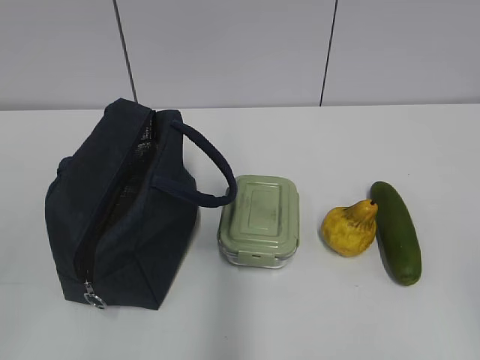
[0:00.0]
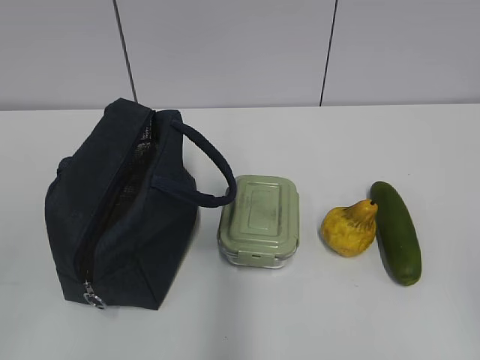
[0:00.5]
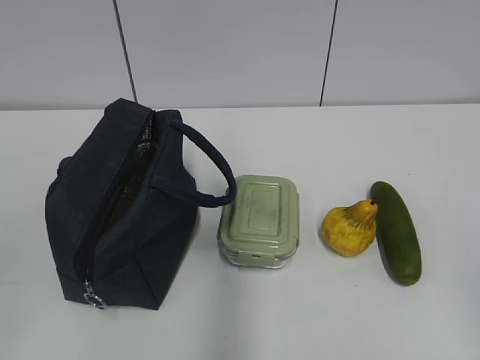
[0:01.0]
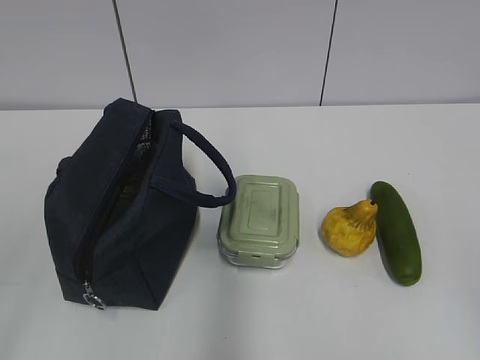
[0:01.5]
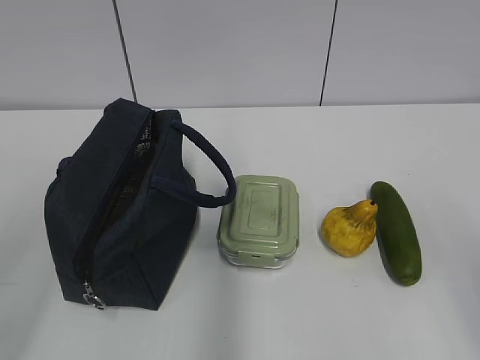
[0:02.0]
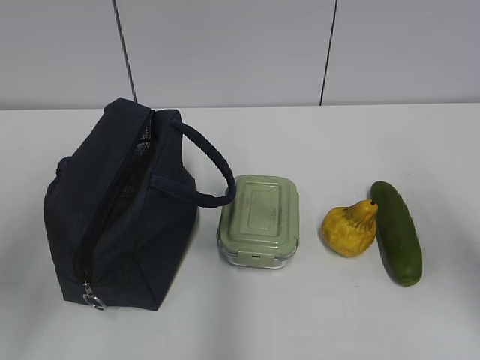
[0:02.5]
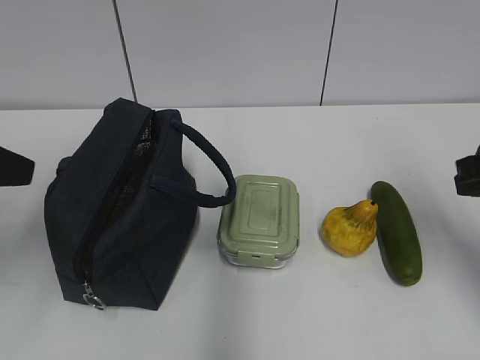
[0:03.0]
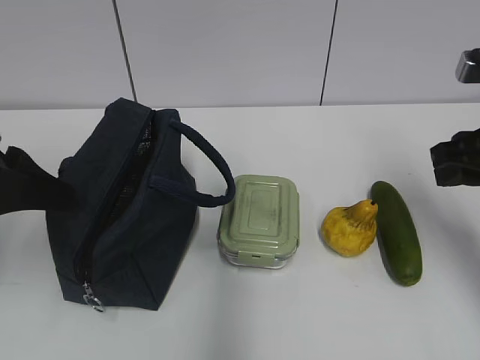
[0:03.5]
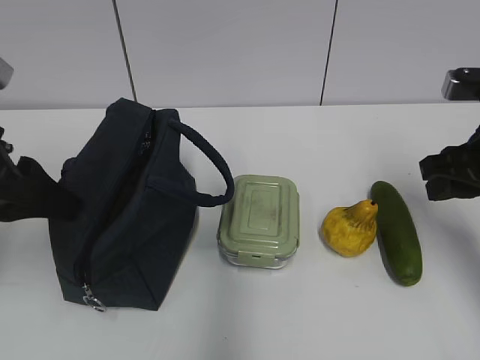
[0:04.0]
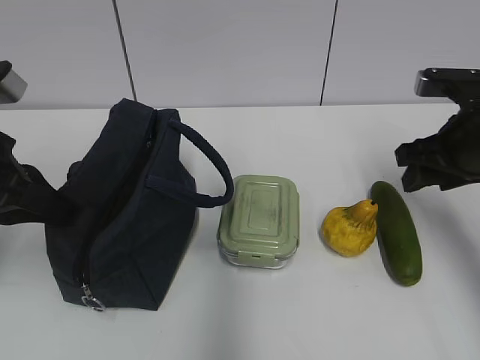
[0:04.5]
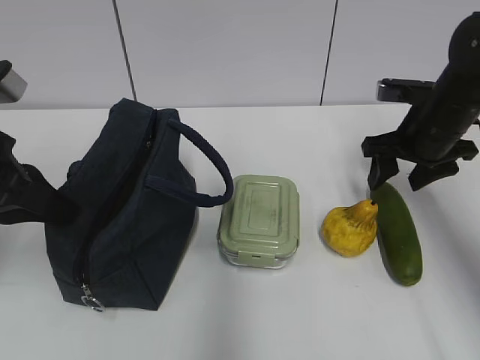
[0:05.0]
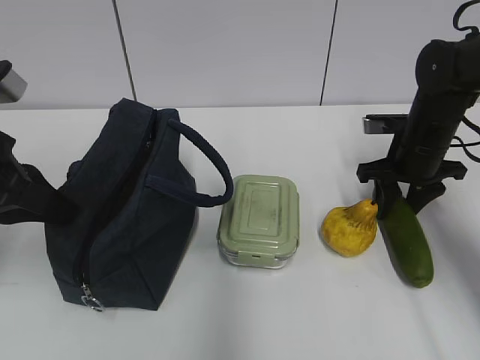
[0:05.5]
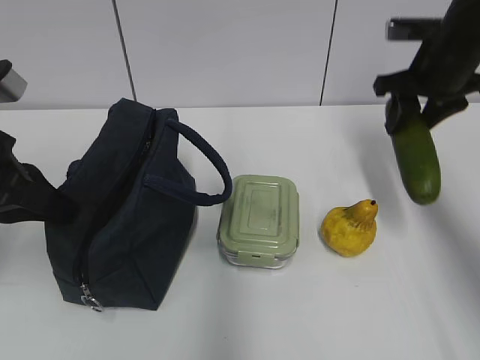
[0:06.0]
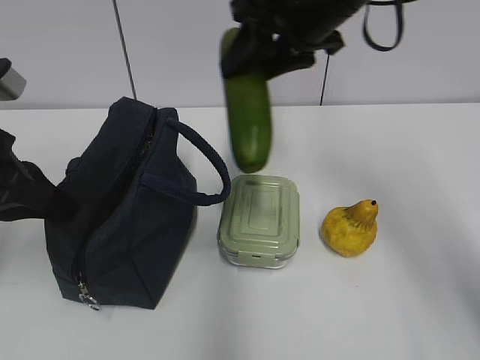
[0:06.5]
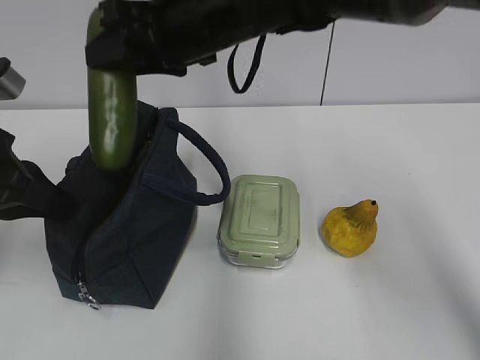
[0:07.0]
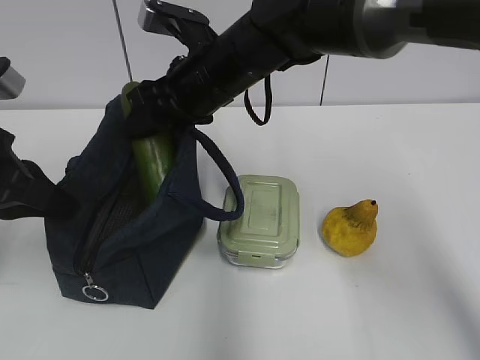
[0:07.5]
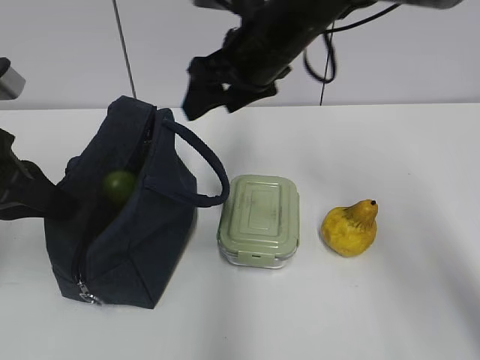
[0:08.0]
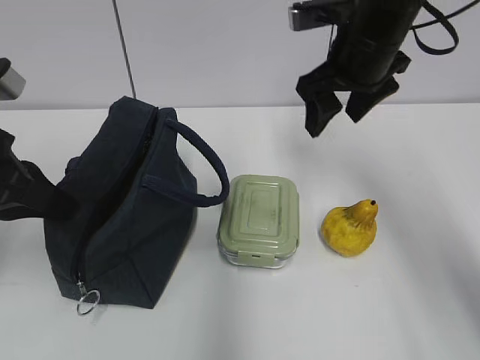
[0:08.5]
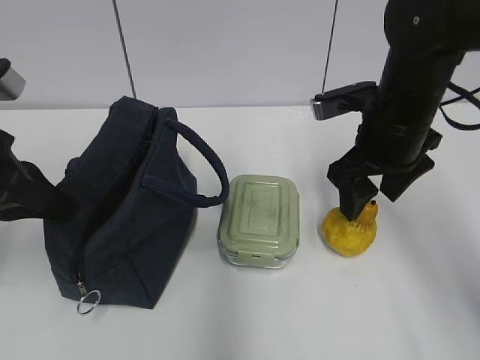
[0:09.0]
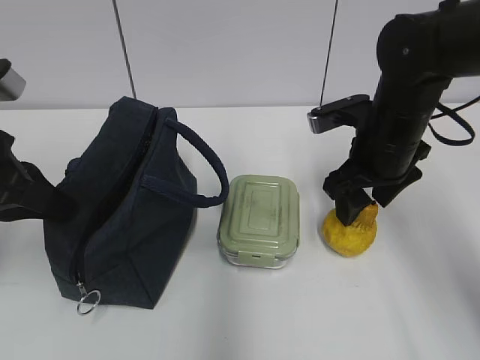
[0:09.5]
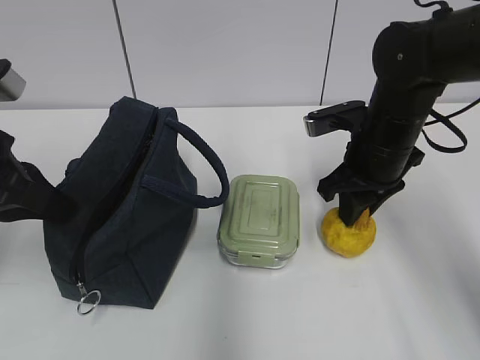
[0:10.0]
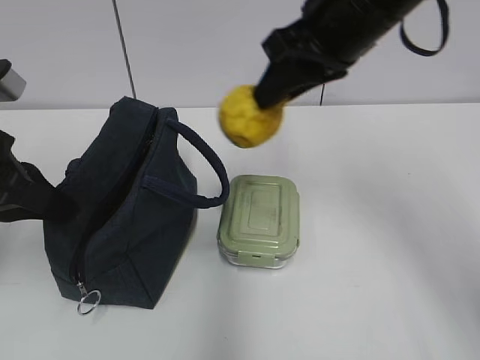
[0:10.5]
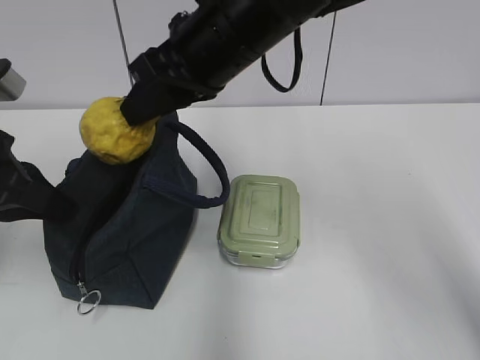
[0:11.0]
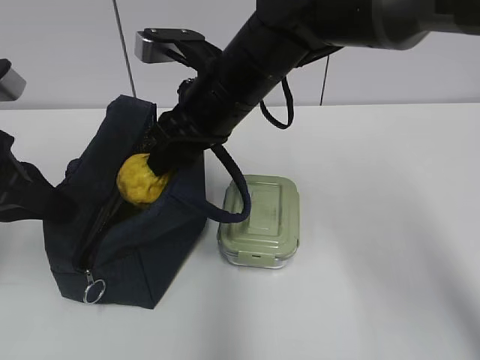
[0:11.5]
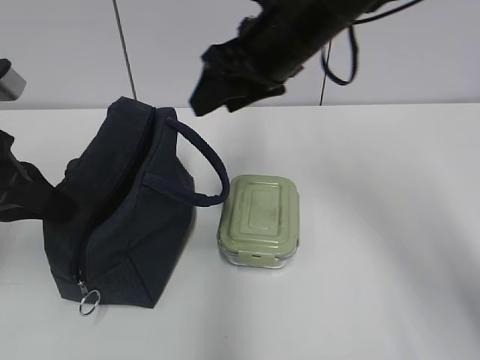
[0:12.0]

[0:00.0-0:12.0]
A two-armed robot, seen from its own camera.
0:02.0 to 0:04.0: The grippers both shift forward by approximately 20 cm.
0:04.0 to 0:06.0: The left gripper closes its fingers. The right gripper travels forward by approximately 15 cm.
0:06.0 to 0:08.0: The right gripper heads to the left, covering approximately 20 cm, and opens up.
0:08.0 to 0:10.0: The right gripper is displaced to the right and downward by about 15 cm, and closes up.
0:10.0 to 0:12.0: The right gripper travels upward and to the left by about 15 cm, and opens up.

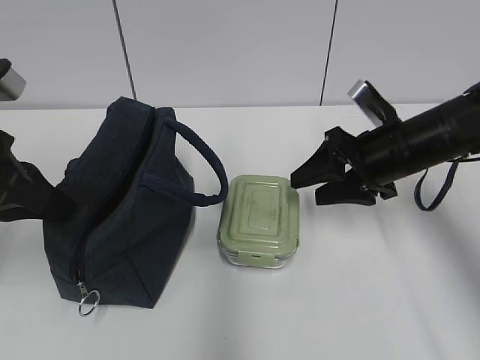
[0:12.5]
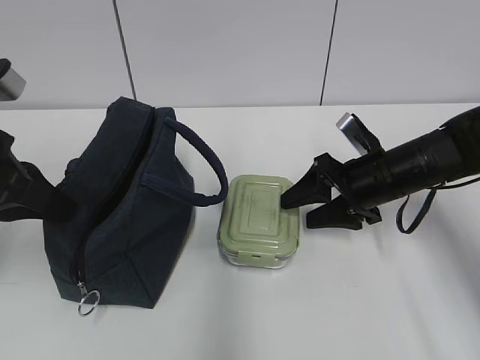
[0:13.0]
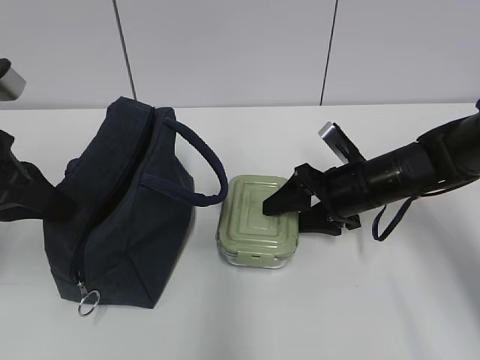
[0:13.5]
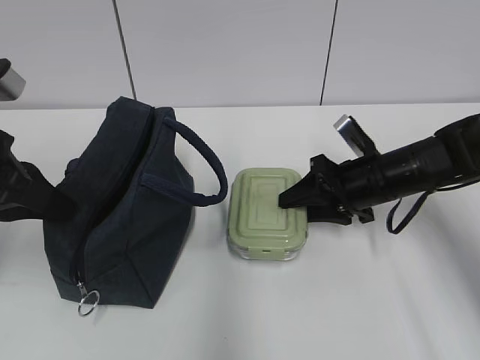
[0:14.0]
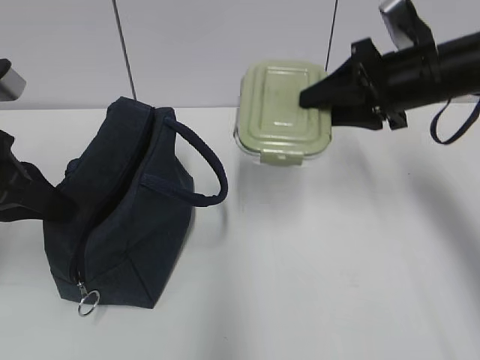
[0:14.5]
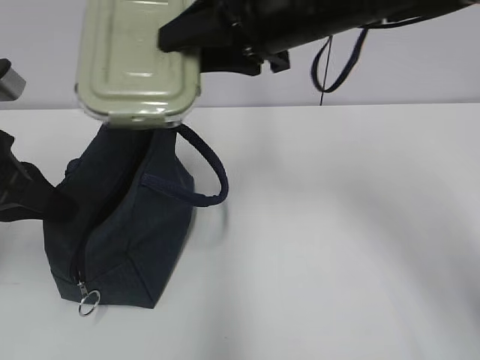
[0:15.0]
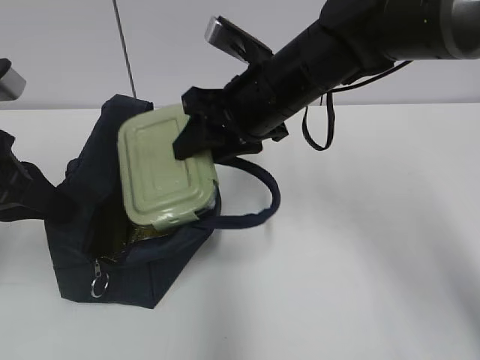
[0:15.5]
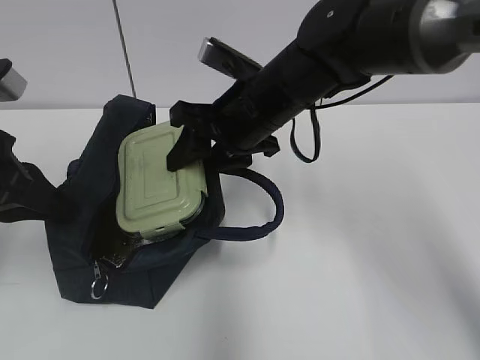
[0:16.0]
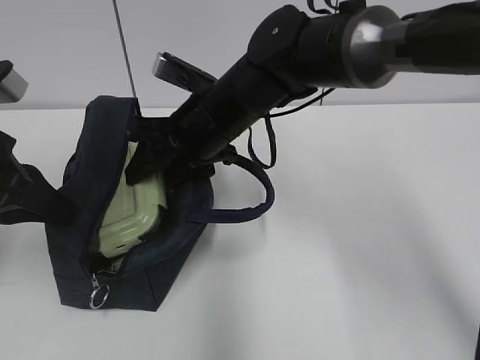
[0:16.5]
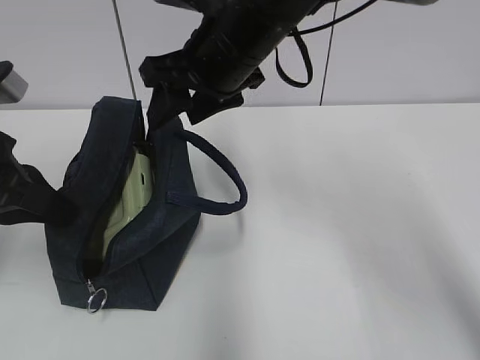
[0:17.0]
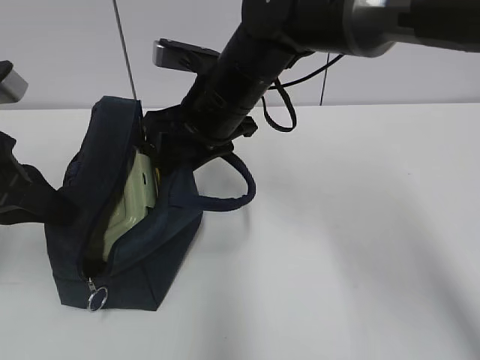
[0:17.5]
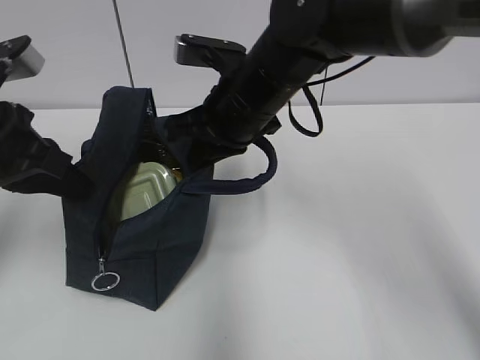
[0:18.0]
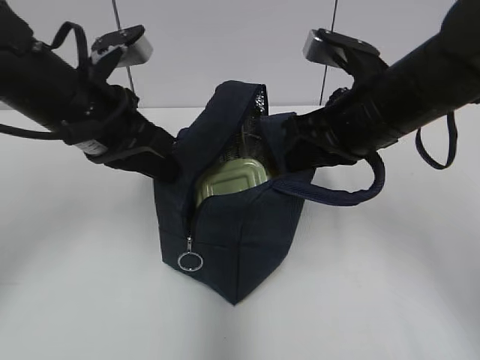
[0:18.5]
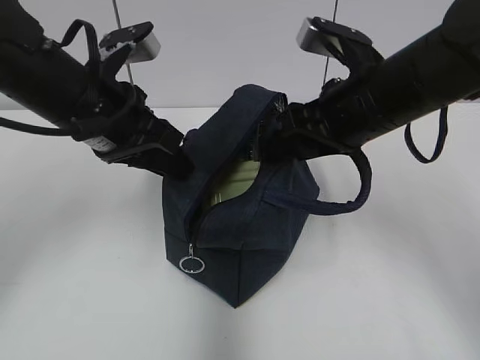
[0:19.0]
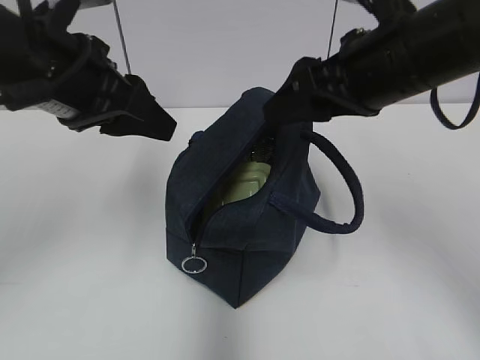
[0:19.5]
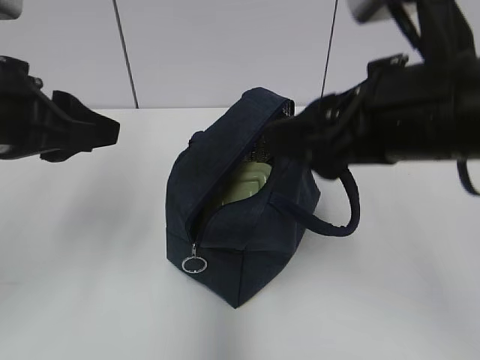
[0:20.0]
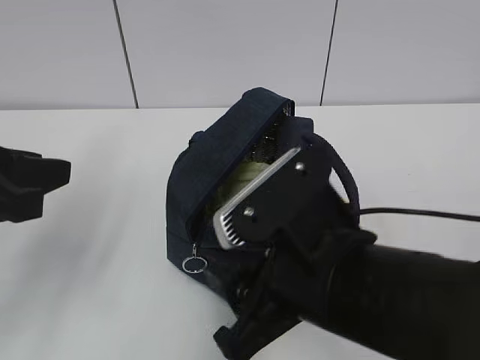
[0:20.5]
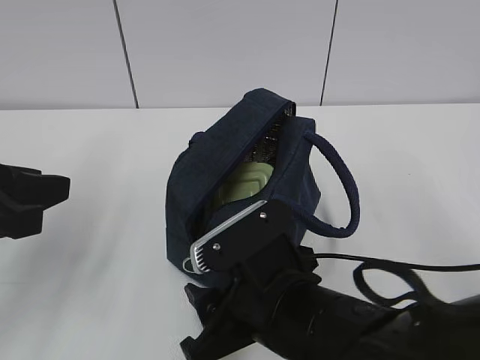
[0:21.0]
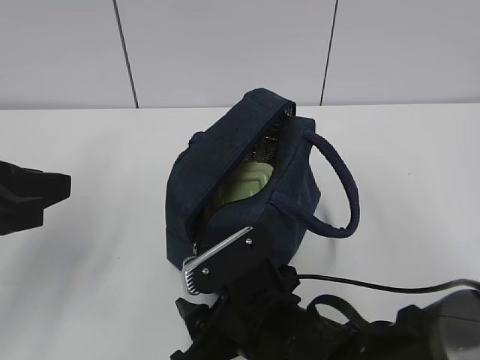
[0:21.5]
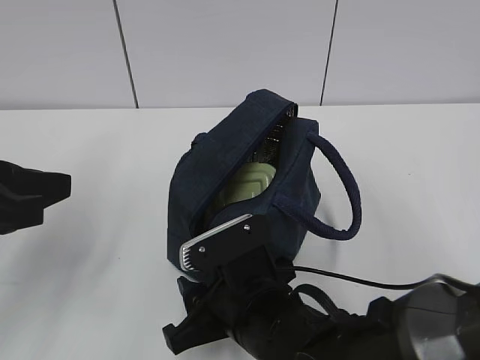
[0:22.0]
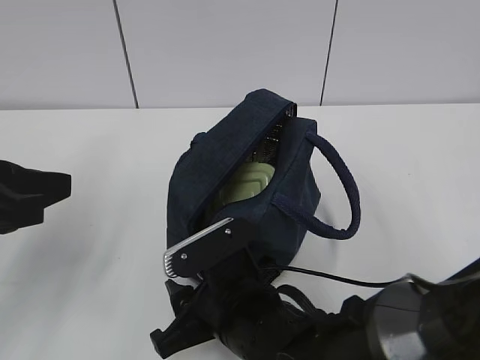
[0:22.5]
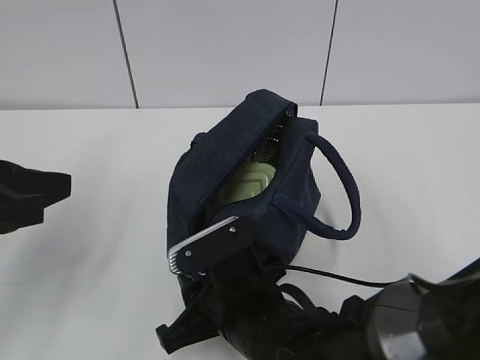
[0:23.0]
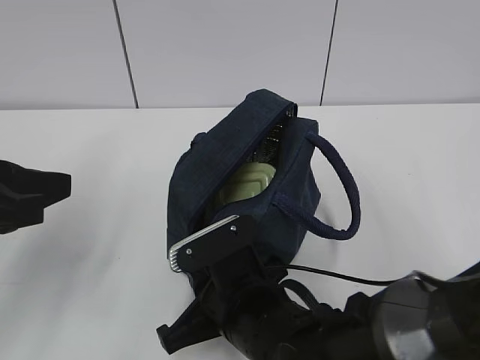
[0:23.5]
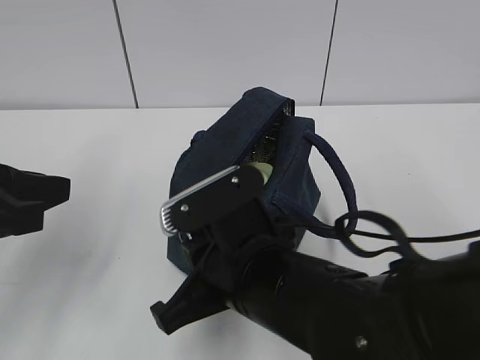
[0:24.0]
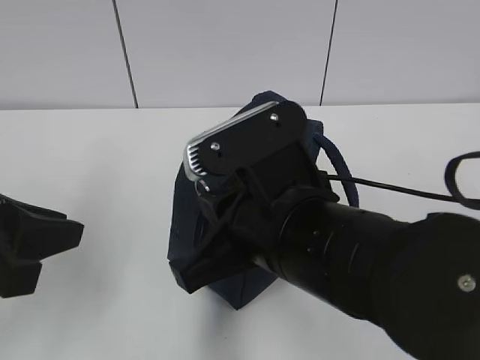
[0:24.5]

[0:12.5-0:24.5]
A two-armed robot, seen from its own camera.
0:12.5 to 0:14.5: The right gripper heads upward, covering some 10 cm.
0:14.5 to 0:16.5: The right gripper moves to the left, some 20 cm.
0:16.5 to 0:18.5: The right gripper heads to the right, covering some 15 cm, and closes its fingers. The left gripper moves to the right and forward, about 10 cm.
0:18.5 to 0:20.5: Both grippers travel together backward and to the left, roughly 15 cm. The right gripper opens its fingers; the left gripper opens up.
0:20.5 to 0:22.5: The right gripper is displaced downward and to the left by approximately 15 cm.
0:22.5 to 0:24.5: The right gripper shifts about 15 cm upward, and closes.

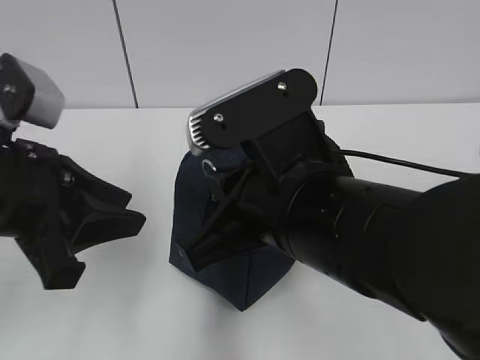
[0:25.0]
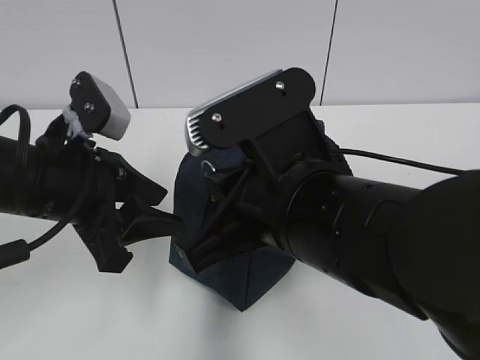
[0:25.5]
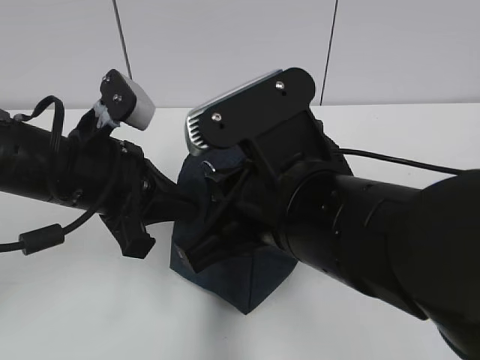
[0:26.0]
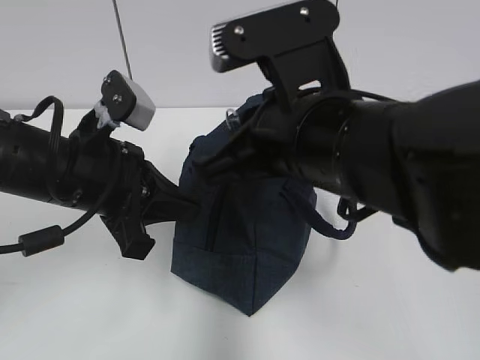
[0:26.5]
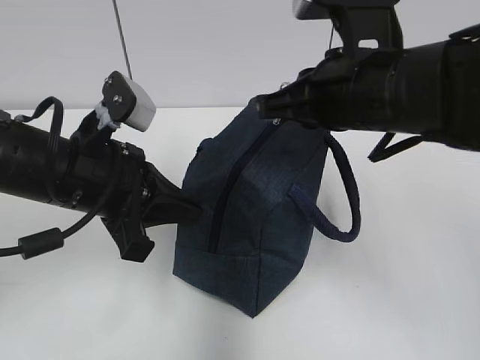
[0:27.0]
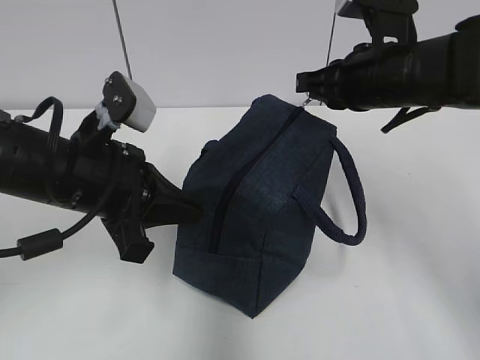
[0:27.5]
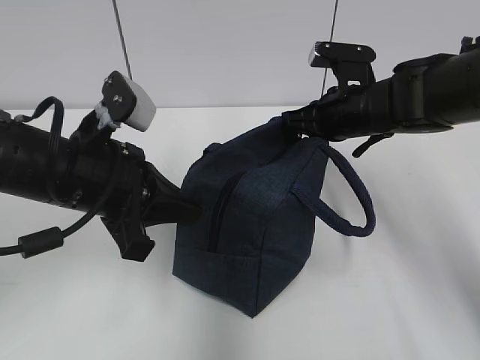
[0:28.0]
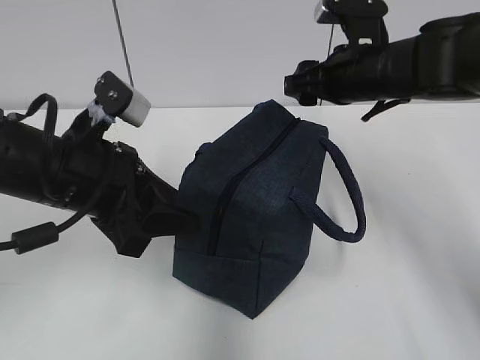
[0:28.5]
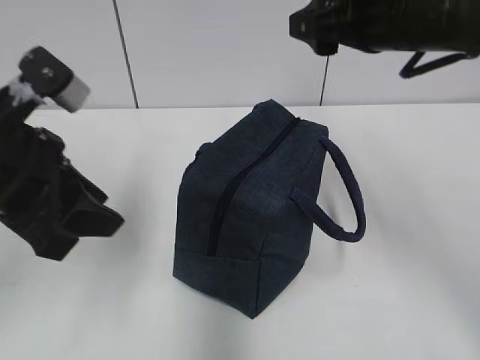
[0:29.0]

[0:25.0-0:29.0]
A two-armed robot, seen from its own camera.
0:25.0 to 0:27.0: The right gripper travels forward and to the right by some 10 cm; the left gripper travels forward by roughly 5 cm, and closes its fingers.
0:27.0 to 0:29.0: The left gripper goes roughly 5 cm upward, and opens its fingers. Meanwhile the right gripper moves about 10 cm downward and comes back, and opens up.
